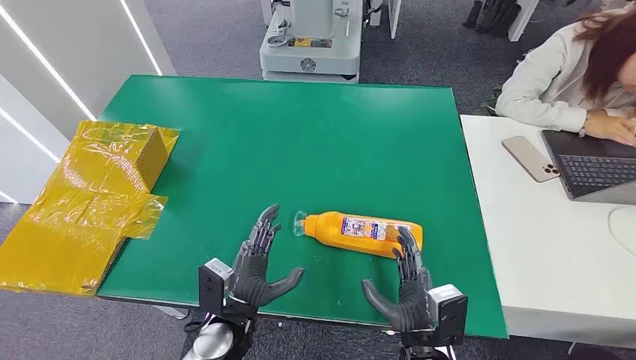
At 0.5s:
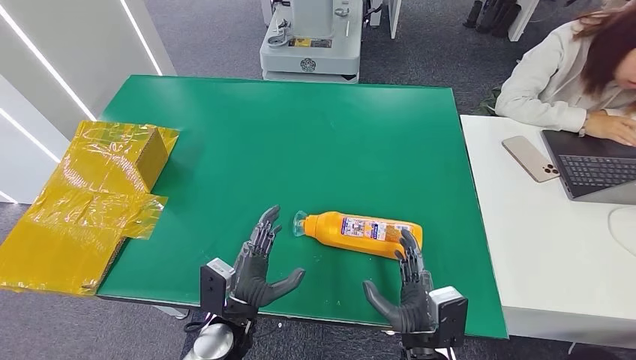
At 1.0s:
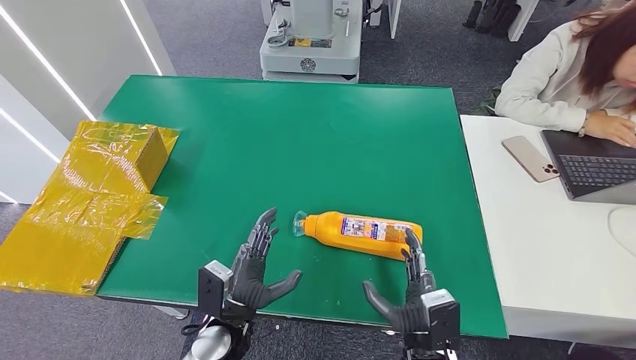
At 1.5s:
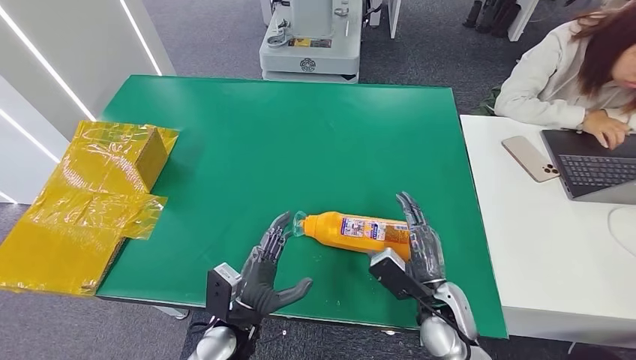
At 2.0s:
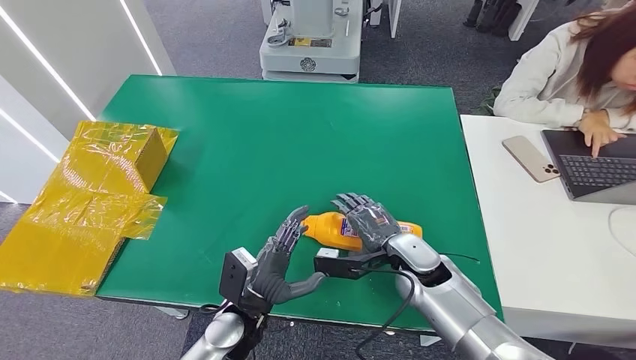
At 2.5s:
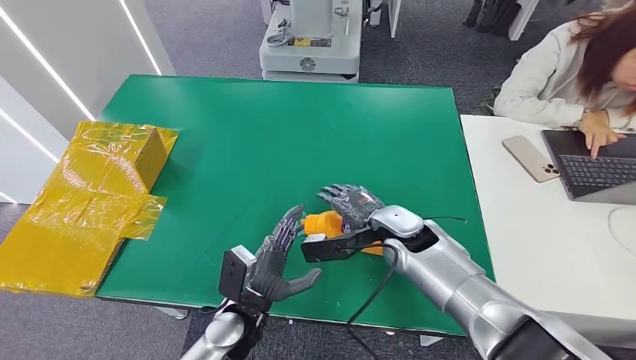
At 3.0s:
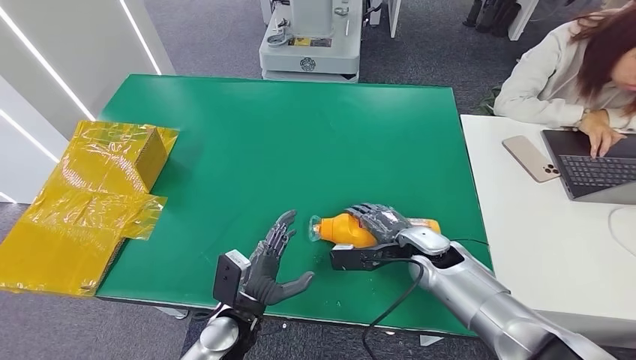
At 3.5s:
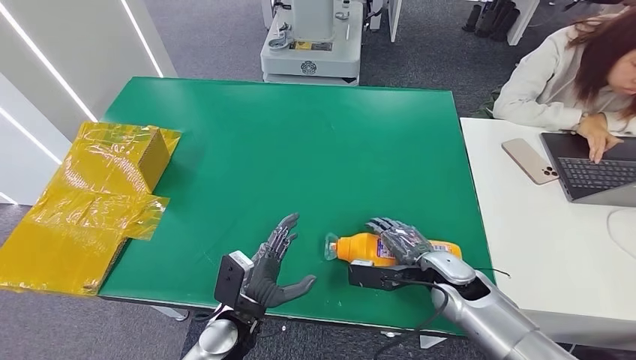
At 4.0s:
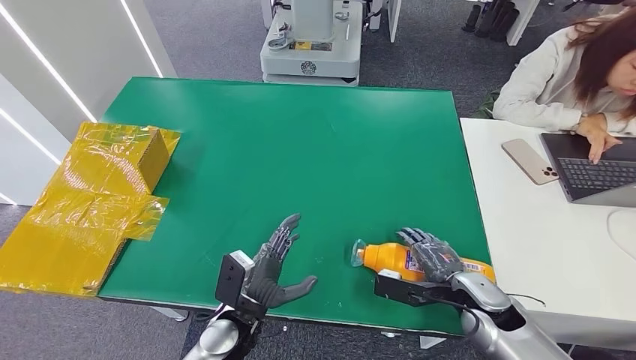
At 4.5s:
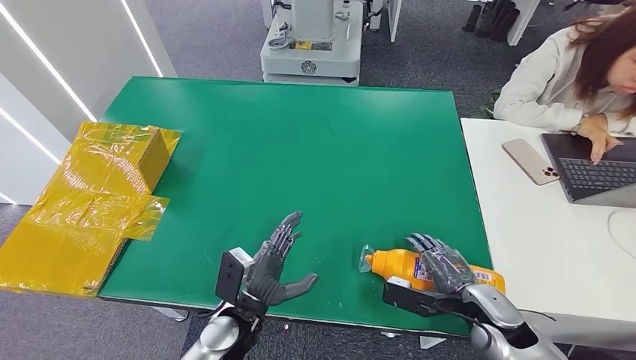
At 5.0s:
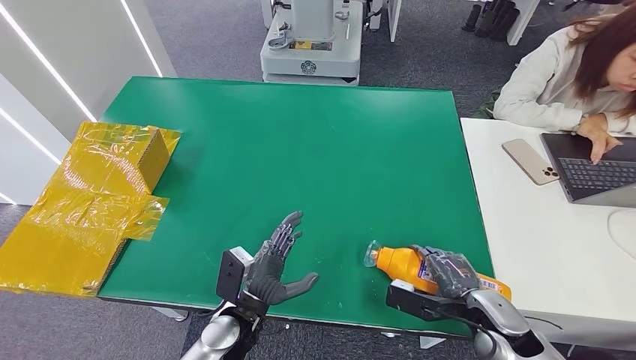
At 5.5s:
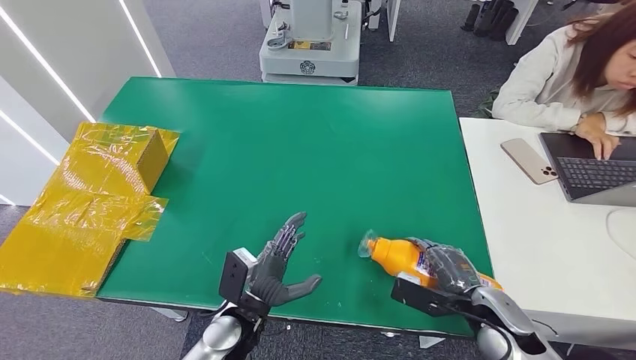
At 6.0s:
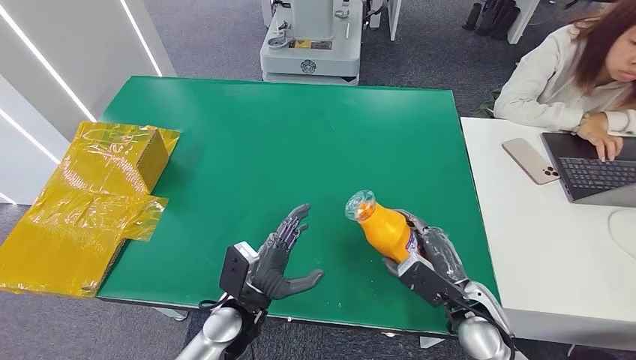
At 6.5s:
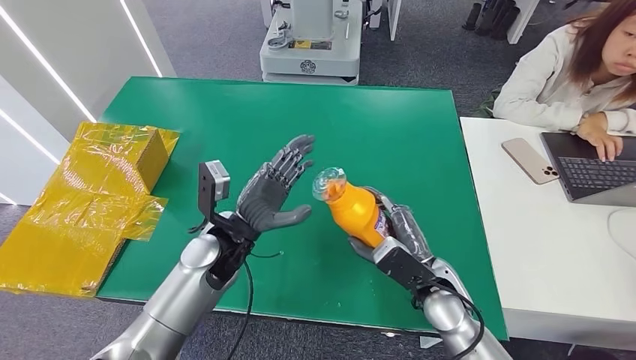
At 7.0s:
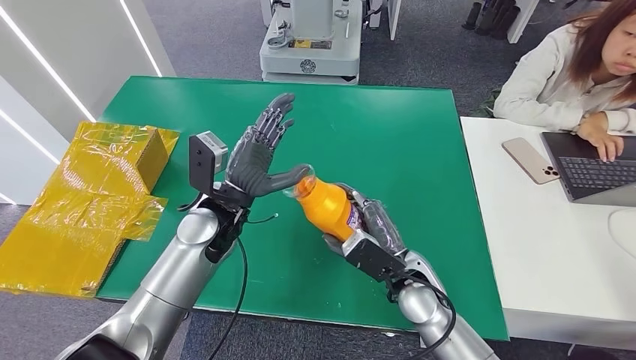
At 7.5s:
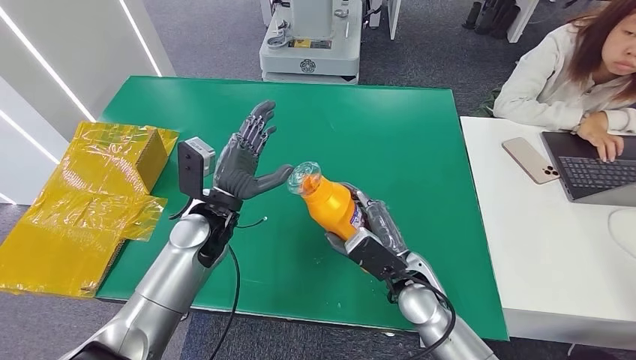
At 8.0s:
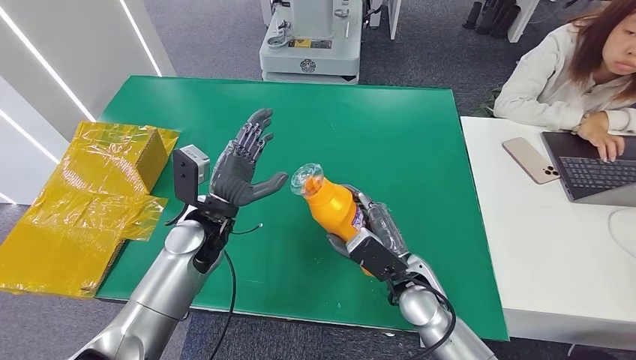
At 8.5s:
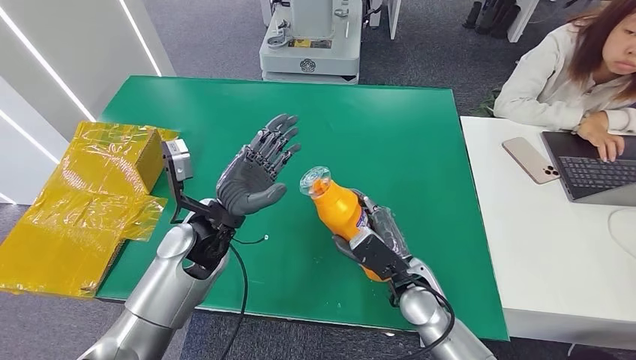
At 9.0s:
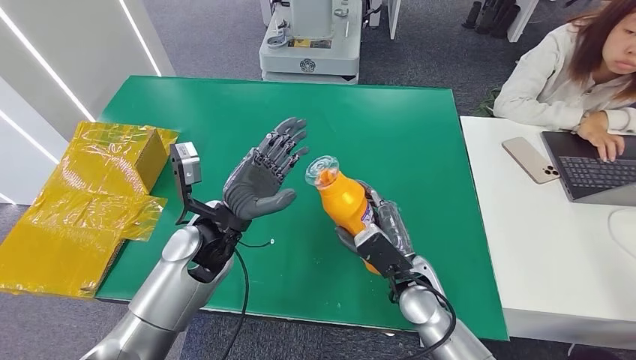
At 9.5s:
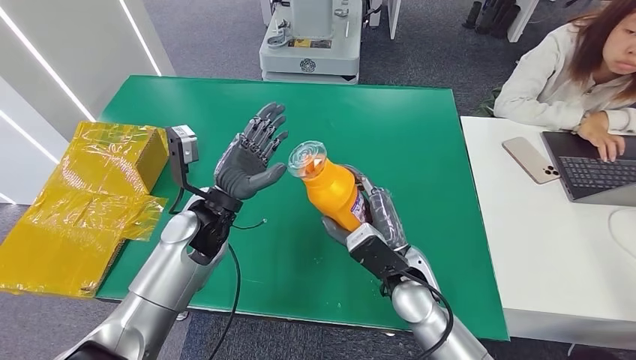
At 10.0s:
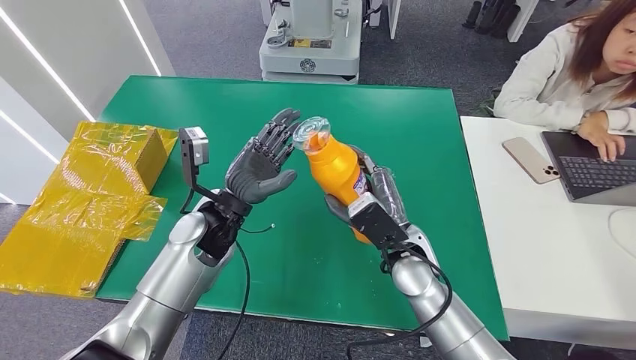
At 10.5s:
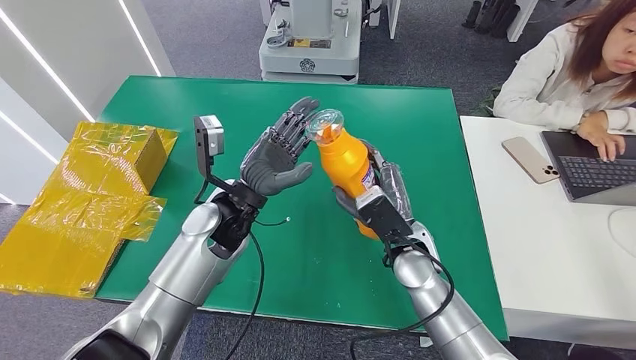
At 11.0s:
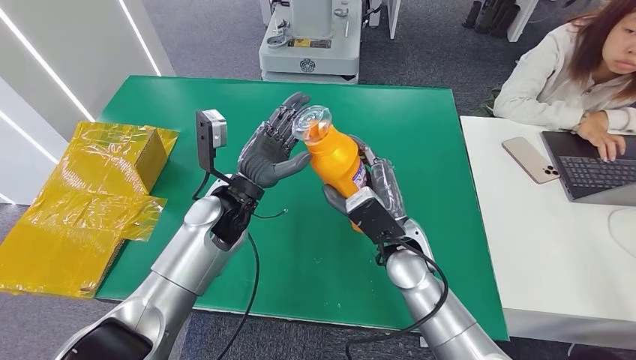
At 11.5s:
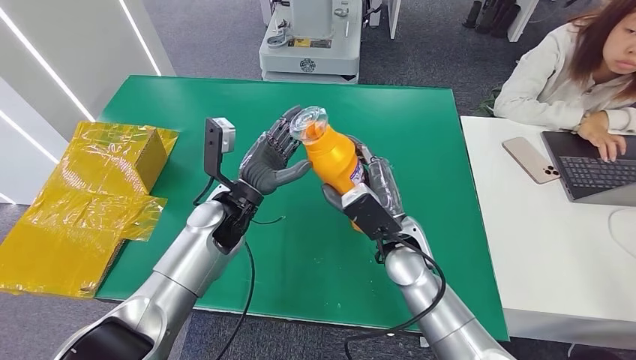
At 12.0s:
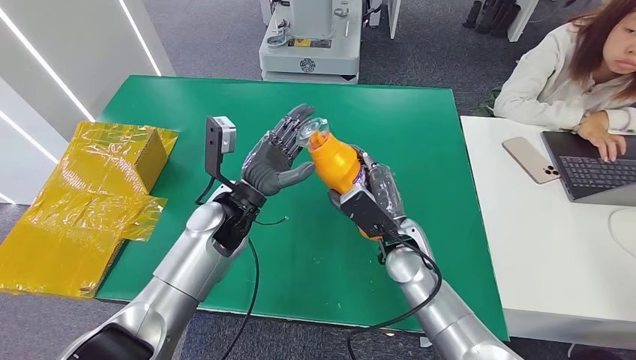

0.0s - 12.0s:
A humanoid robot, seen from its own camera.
Step, 0.0s - 6.0s: Pick up the bottle from the table.
2.0s - 4.0s: The right hand goes roughly 15 cm to the right and backward.
6.0s - 8.0s: The left hand travels forward, upward and to the left by some 15 cm. Meanwhile the right hand goes roughly 10 cm to the left.
8.0s - 10.0s: The right hand ends up about 5 cm from where it was.
10.0s - 12.0s: There are only small adjustments of the hands.

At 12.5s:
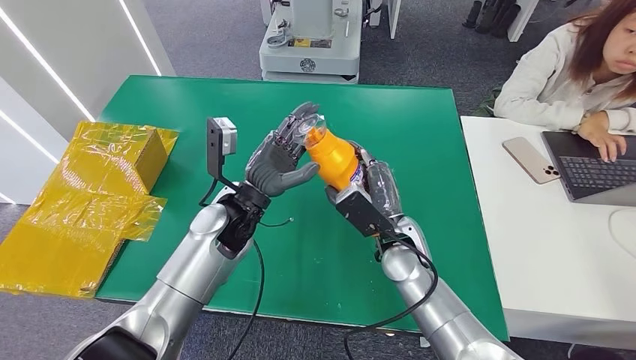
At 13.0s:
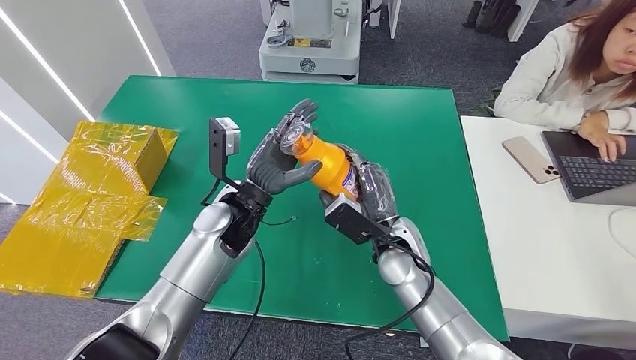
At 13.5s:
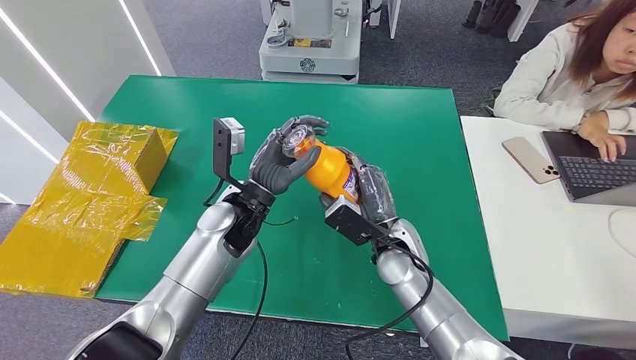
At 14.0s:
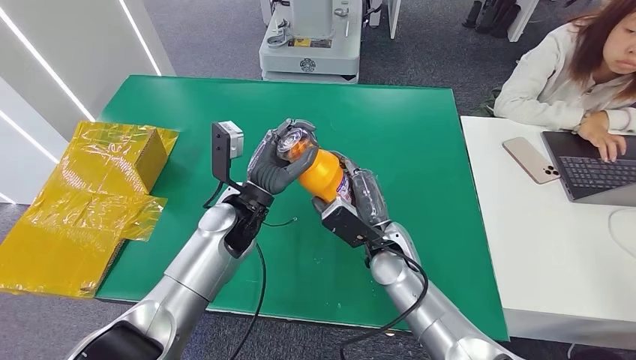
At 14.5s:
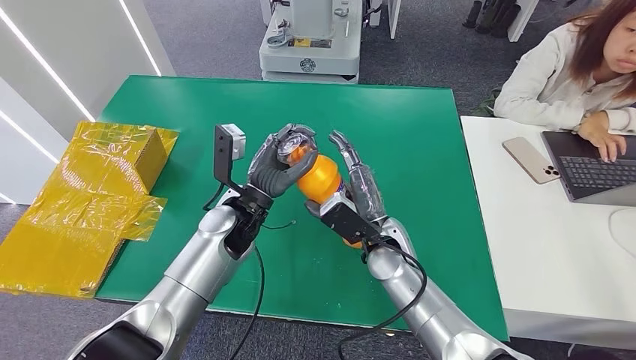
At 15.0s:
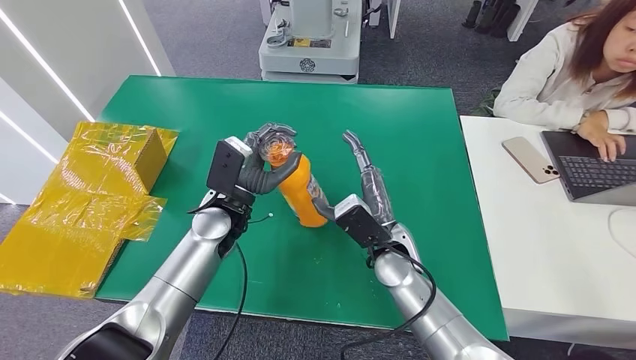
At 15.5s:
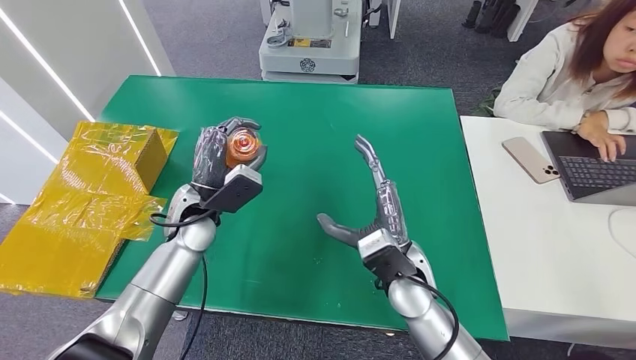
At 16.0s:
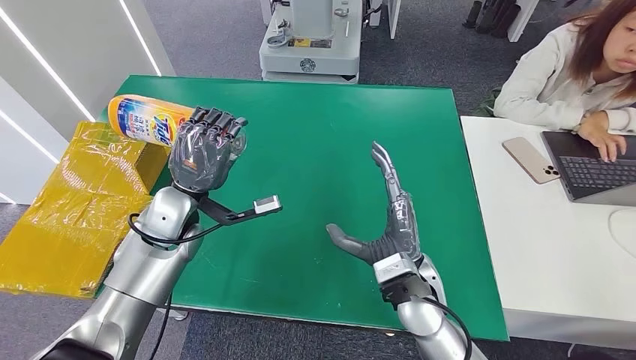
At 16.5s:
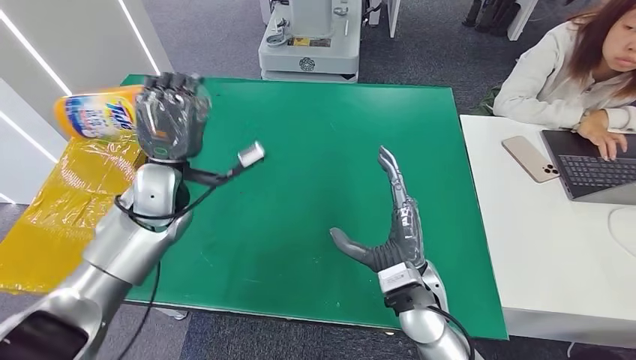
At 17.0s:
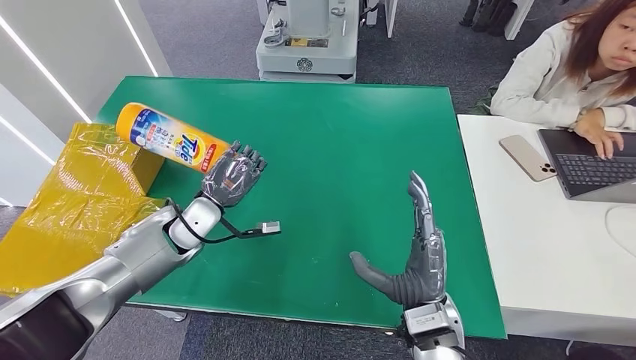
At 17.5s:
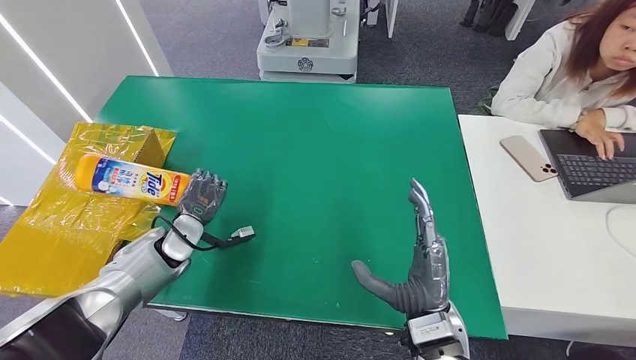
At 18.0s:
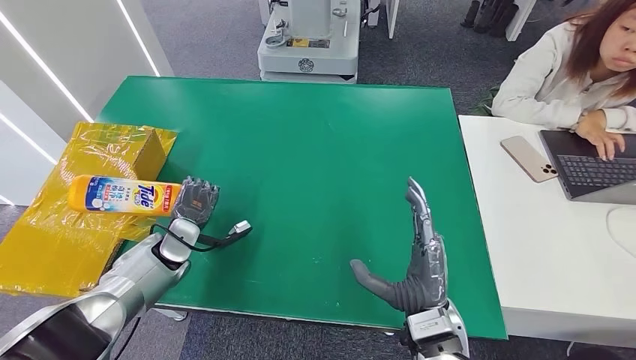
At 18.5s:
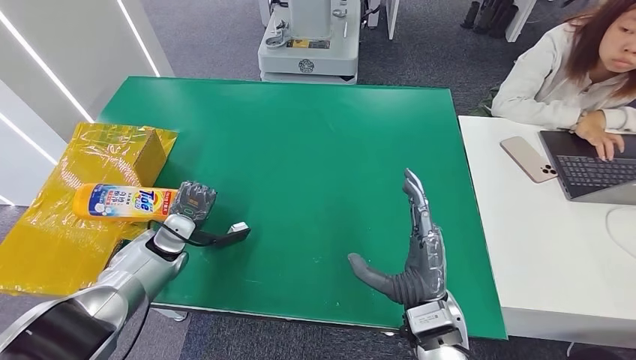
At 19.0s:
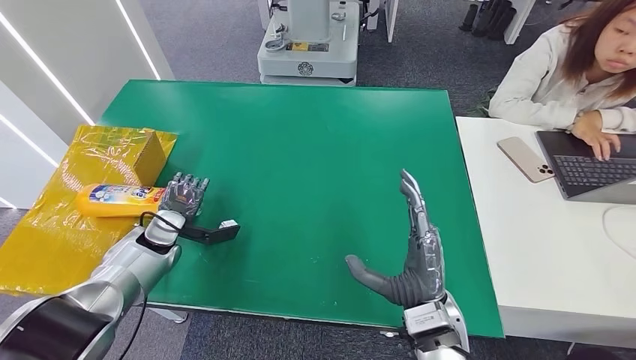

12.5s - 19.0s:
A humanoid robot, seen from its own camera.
Step, 12.5s - 19.0s: Turn the bottle to the front side.
12.5s - 14.5s: There are only small adjustments of the hands.
17.0s - 19.0s: The left hand travels to the left and downward by some 10 cm.
